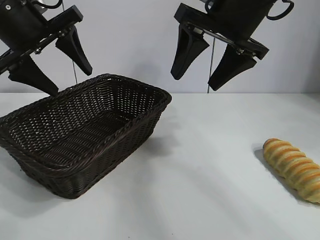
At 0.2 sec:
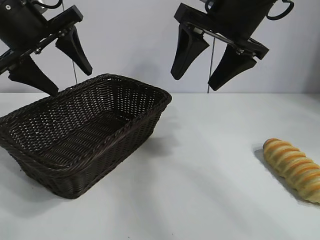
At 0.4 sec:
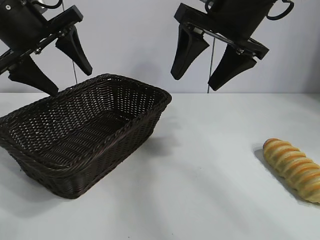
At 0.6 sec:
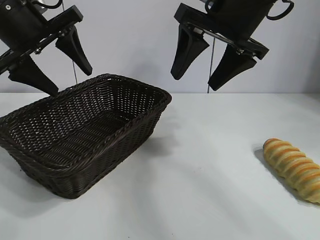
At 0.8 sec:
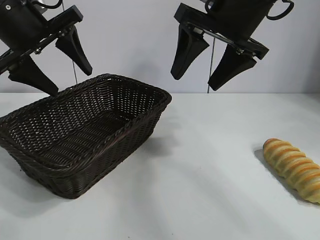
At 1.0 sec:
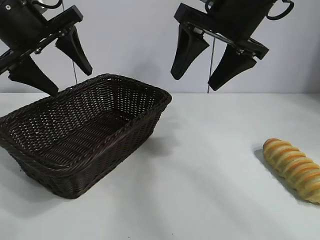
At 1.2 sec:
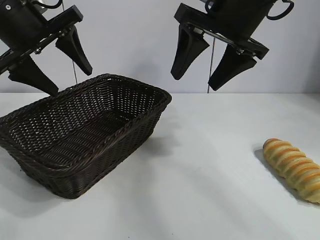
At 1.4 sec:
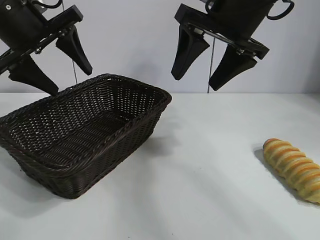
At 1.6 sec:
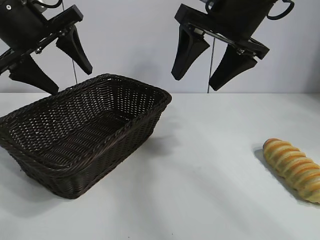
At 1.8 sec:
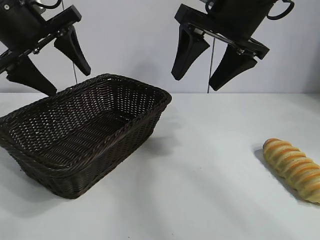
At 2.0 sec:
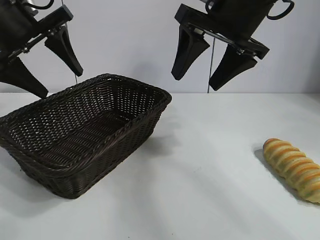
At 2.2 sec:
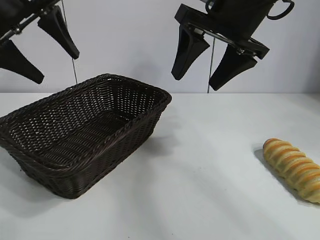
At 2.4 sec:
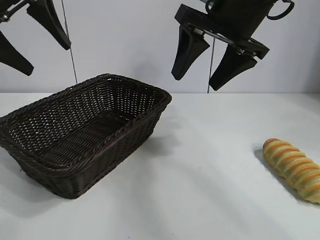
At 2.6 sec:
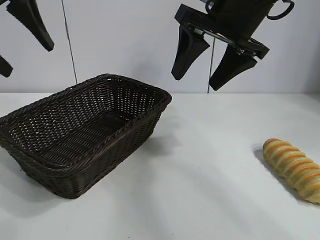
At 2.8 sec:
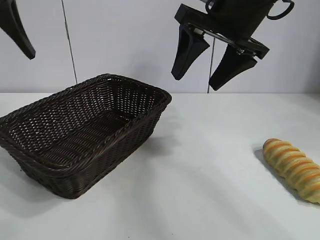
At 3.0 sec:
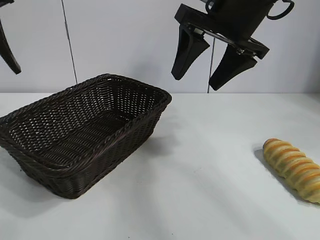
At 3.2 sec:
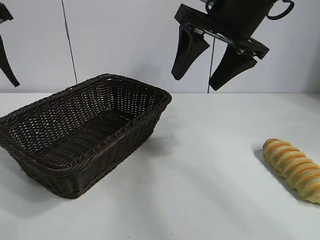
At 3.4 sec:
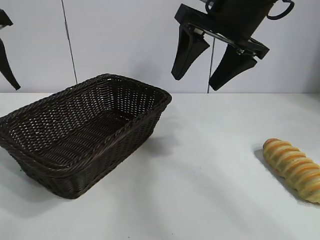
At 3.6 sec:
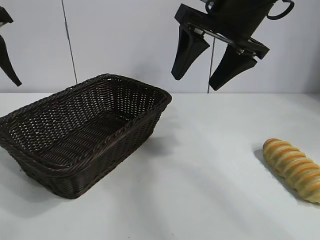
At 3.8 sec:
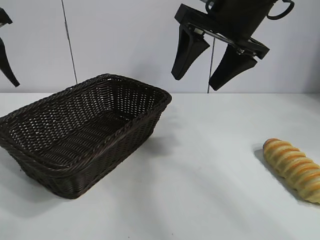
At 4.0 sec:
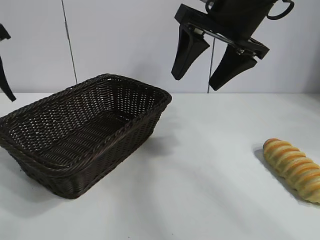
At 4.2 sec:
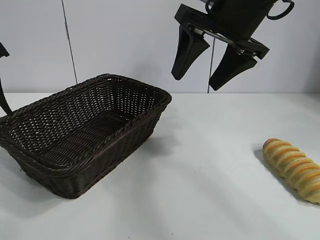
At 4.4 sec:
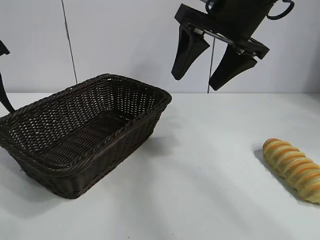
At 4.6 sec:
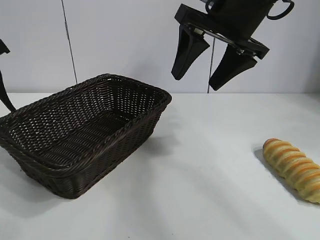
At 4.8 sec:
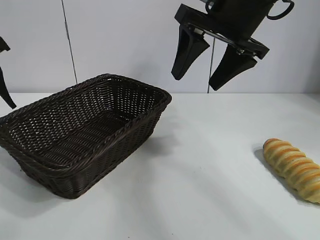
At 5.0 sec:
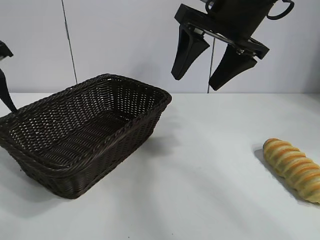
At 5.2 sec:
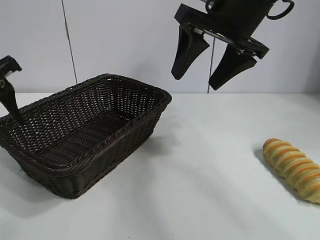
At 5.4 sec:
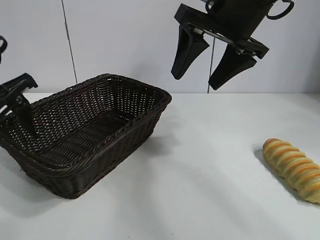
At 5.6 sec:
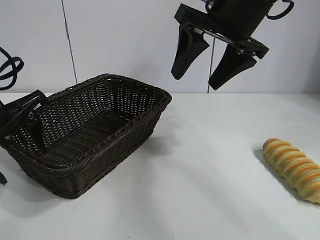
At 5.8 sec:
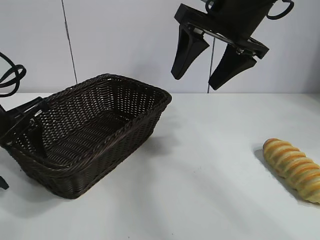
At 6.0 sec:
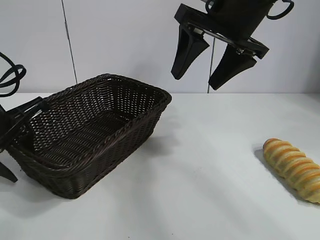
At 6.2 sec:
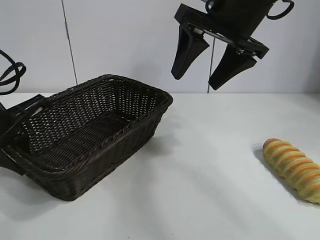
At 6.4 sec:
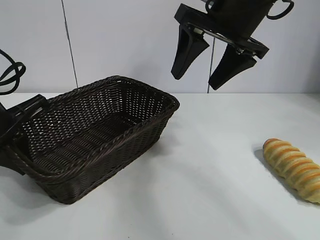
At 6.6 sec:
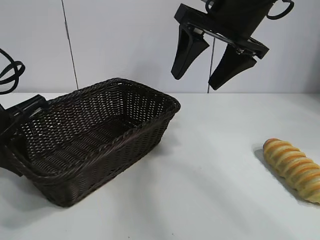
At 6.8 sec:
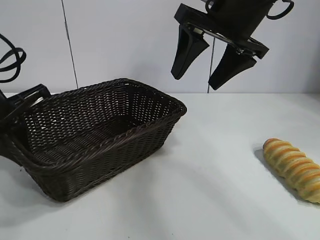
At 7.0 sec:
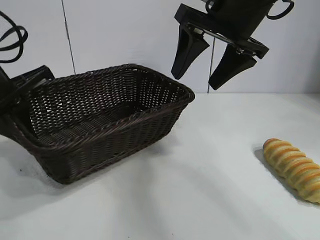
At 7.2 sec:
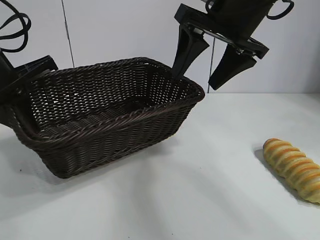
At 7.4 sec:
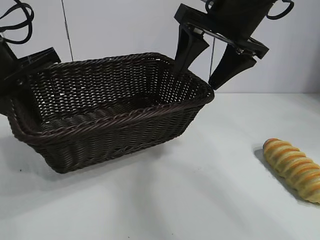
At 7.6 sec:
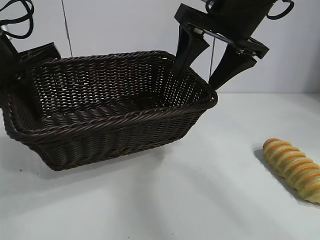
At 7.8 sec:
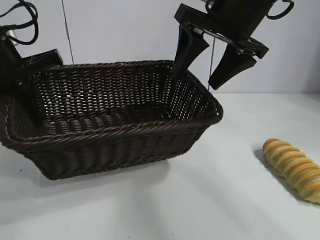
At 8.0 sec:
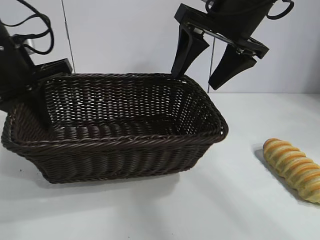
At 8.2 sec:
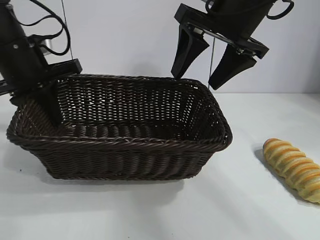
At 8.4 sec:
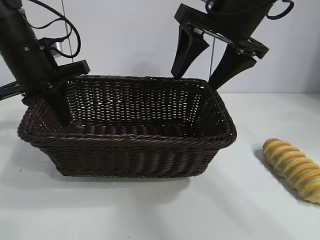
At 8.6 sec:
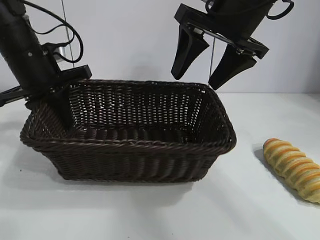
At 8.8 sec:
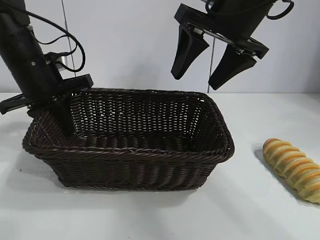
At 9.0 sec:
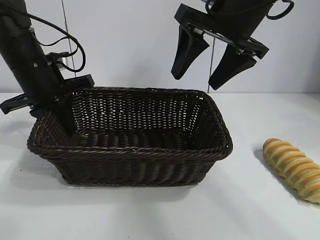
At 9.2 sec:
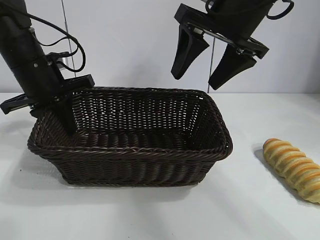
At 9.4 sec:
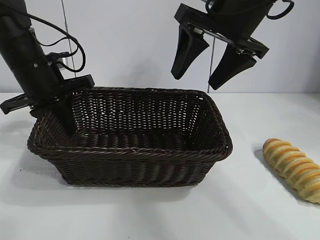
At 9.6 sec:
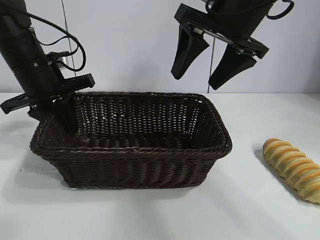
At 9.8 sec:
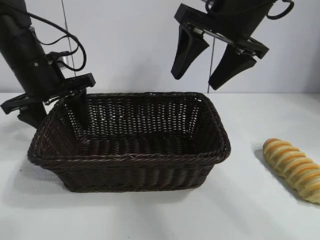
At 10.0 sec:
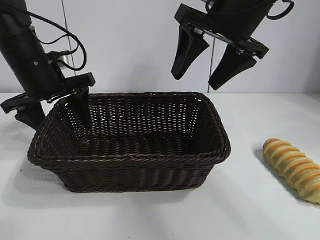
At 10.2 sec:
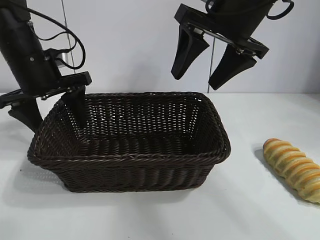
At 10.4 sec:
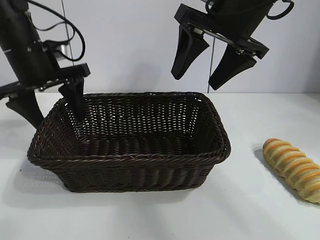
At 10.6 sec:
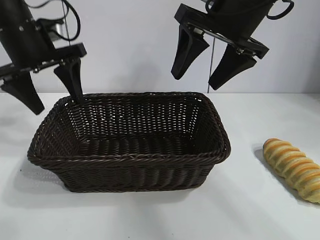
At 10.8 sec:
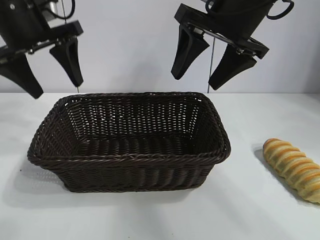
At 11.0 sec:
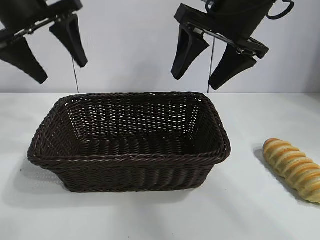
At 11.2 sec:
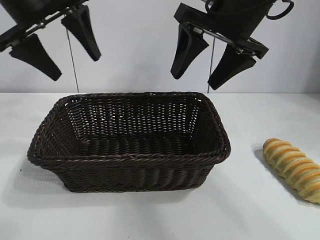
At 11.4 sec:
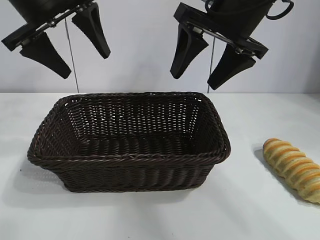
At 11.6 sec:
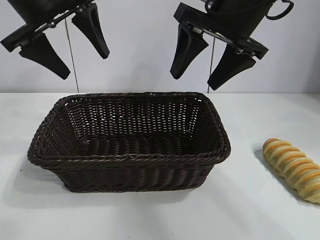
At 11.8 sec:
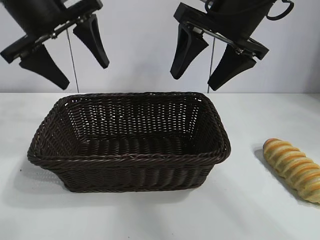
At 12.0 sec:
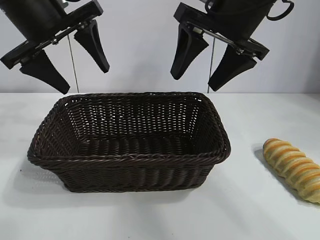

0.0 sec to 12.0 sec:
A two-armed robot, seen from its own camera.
Task of the whole recording: pick up the long bread and put it into the basket.
Step, 1.4 sec to 6.2 sec: Grasp the basket with the left gripper.
Step, 6.4 sec to 10.0 sec: Place the basket in the center of the table with the left gripper.

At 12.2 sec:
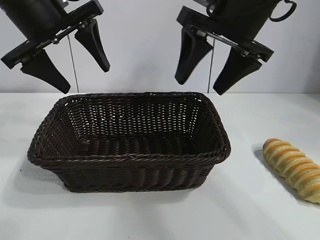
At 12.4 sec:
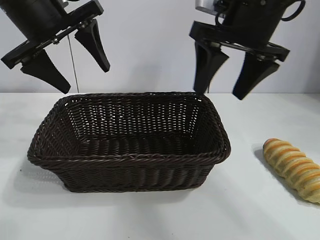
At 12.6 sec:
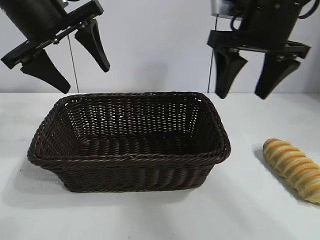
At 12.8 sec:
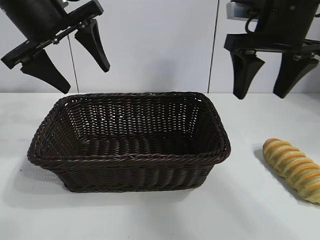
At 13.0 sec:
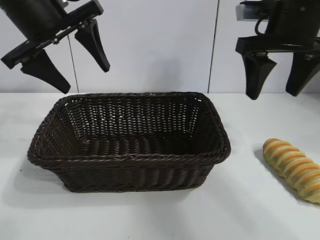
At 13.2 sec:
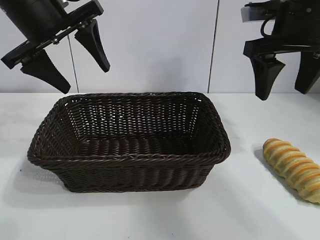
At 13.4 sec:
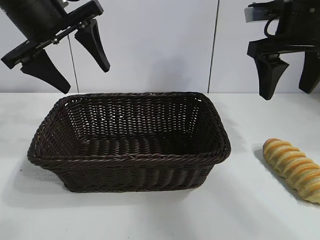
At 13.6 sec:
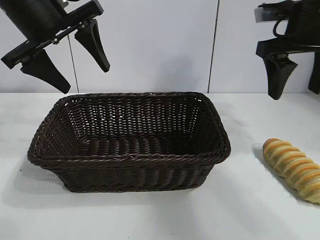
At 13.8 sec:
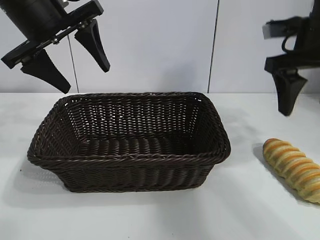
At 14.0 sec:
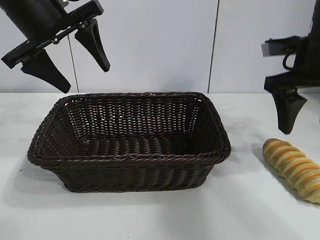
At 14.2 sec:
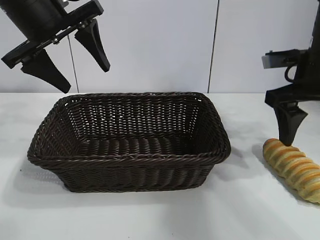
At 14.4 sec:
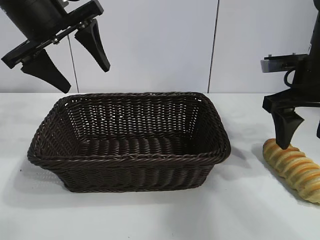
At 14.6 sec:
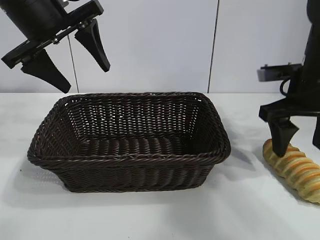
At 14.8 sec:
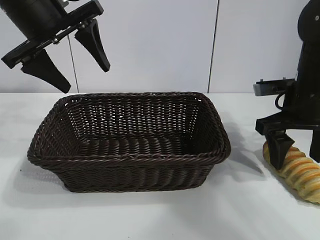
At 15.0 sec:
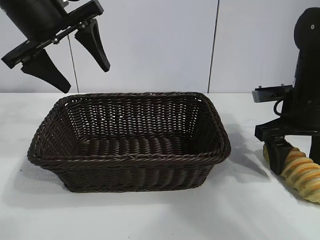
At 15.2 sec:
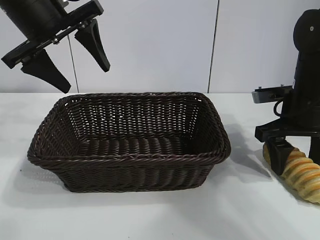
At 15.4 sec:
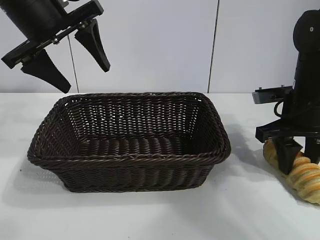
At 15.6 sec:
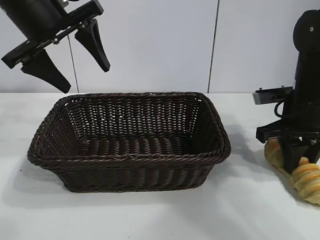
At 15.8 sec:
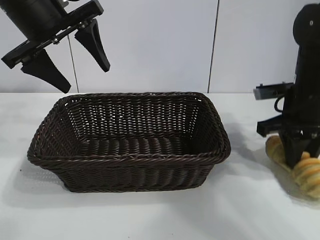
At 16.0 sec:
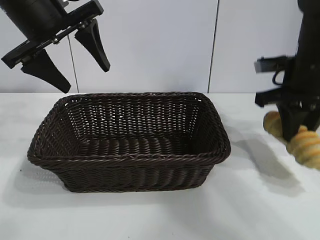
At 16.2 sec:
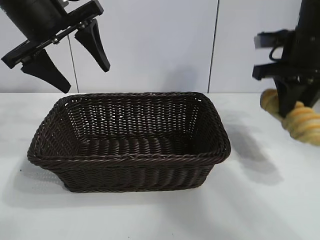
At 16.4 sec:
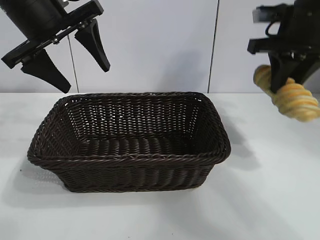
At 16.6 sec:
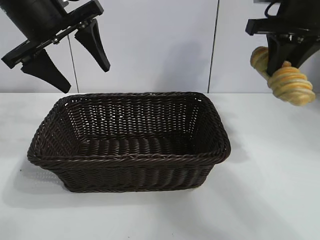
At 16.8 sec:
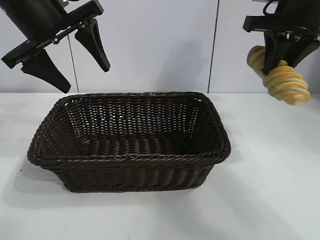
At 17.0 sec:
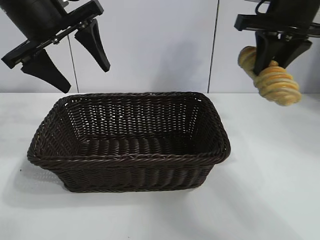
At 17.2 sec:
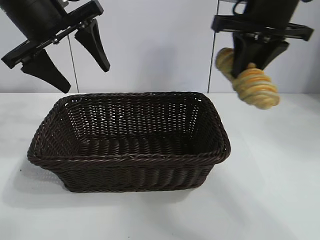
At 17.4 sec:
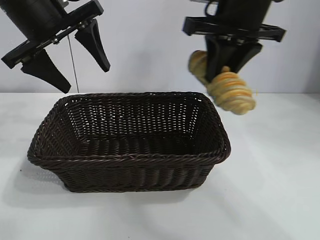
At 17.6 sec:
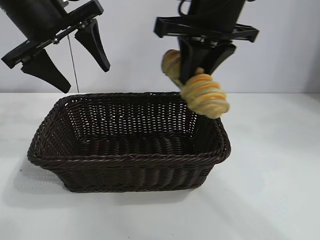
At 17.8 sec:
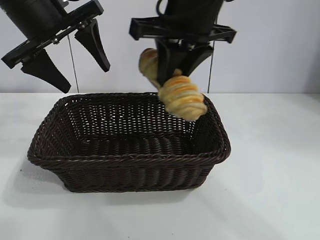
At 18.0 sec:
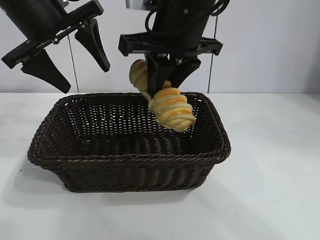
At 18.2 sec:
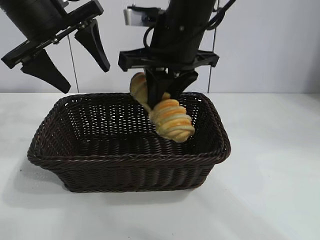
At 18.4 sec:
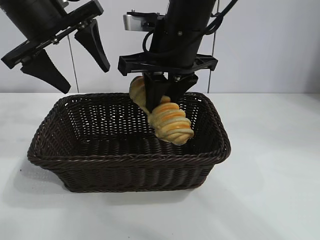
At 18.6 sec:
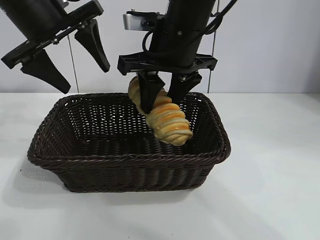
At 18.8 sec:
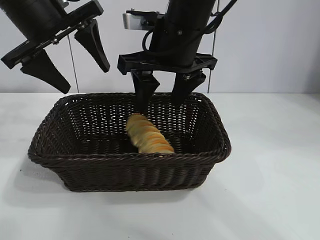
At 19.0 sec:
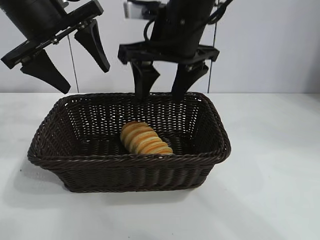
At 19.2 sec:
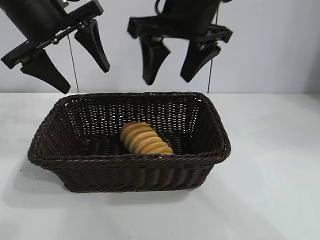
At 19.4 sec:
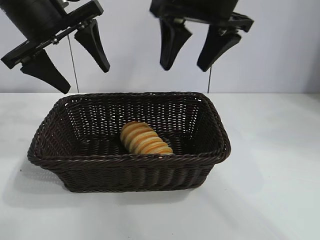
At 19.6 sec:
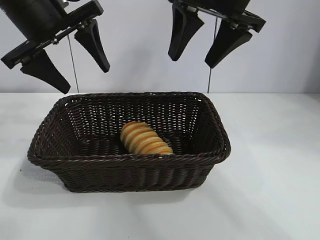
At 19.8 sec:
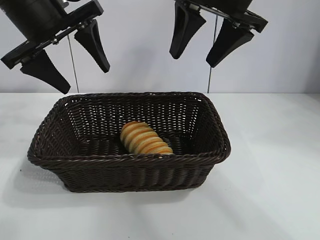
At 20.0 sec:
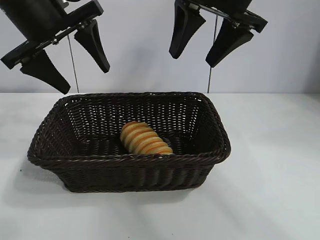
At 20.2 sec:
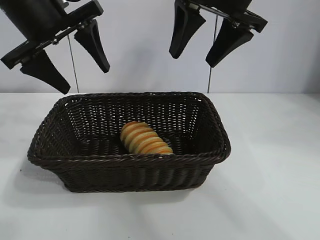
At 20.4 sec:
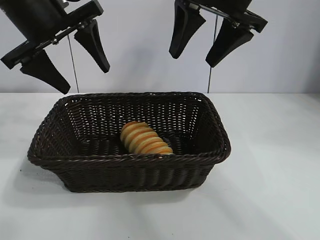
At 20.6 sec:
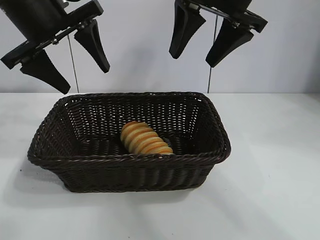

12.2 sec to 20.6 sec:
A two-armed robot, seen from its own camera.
Task of the whole recording: pick up the long bread and put it into the basket.
Step, 12.2 sec to 15.6 sec: Grasp the long bread with right gripper.
Step, 15.8 sec to 19.0 sec: Place the long bread in the basket with right gripper.
